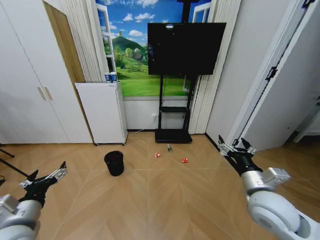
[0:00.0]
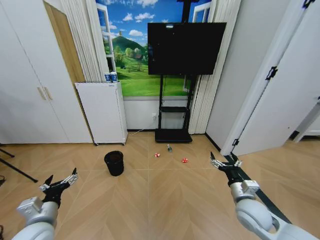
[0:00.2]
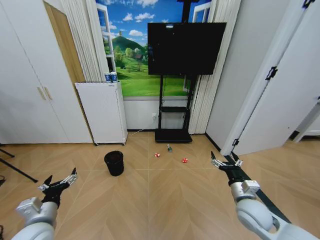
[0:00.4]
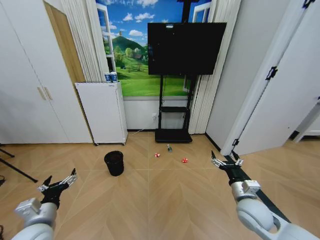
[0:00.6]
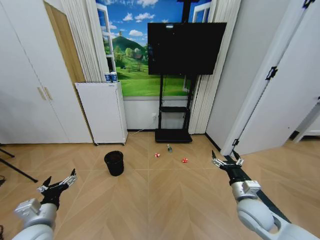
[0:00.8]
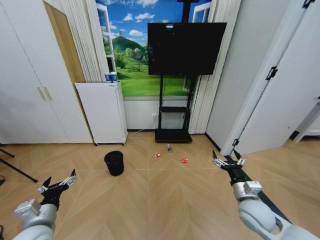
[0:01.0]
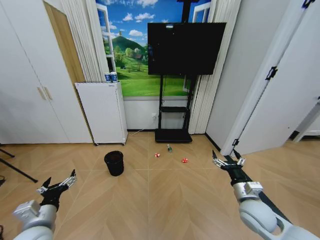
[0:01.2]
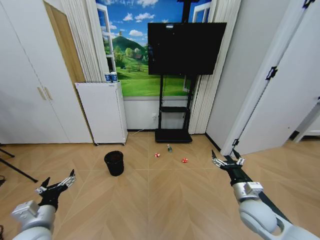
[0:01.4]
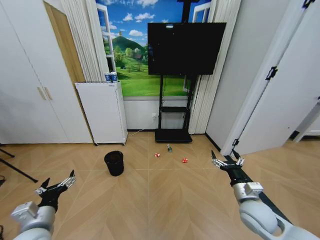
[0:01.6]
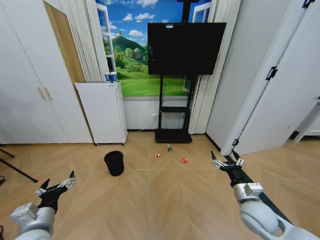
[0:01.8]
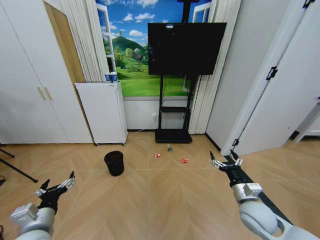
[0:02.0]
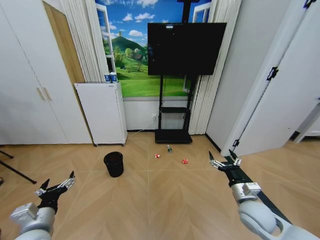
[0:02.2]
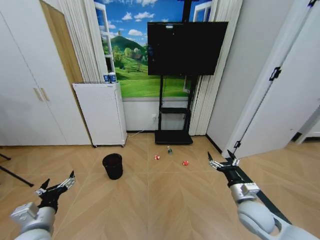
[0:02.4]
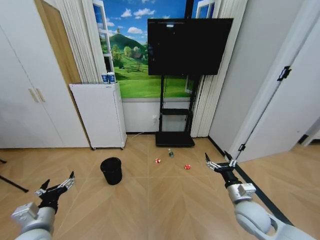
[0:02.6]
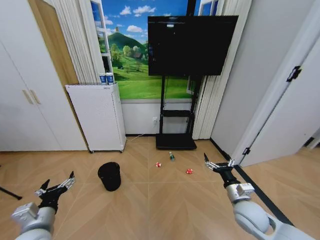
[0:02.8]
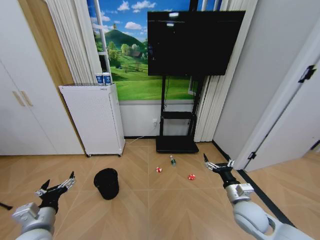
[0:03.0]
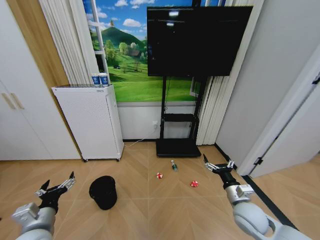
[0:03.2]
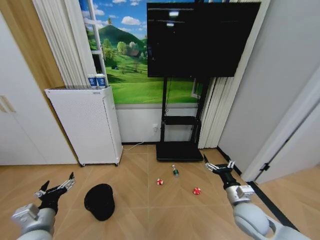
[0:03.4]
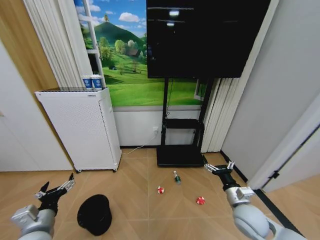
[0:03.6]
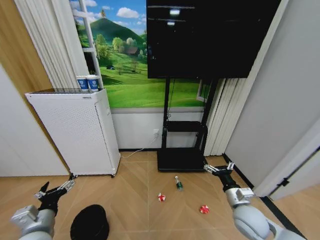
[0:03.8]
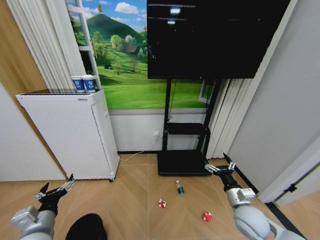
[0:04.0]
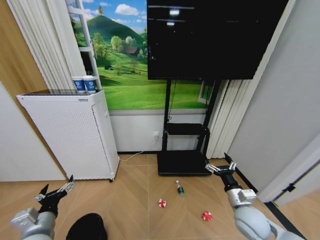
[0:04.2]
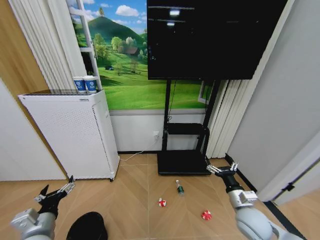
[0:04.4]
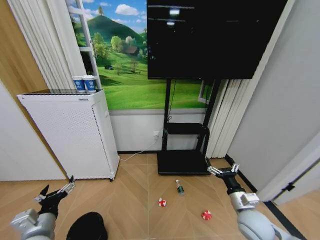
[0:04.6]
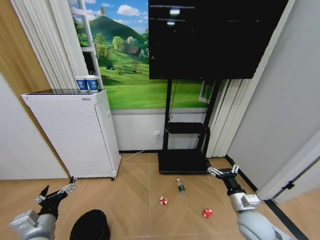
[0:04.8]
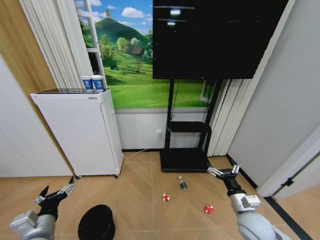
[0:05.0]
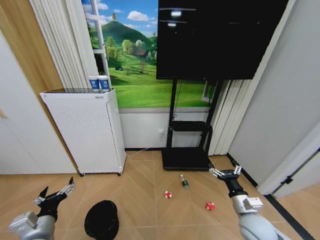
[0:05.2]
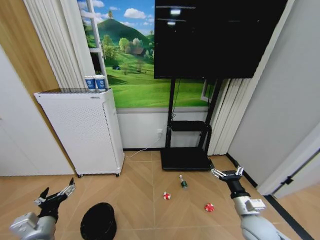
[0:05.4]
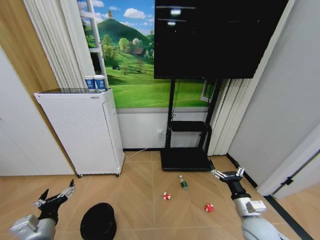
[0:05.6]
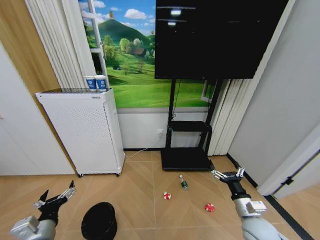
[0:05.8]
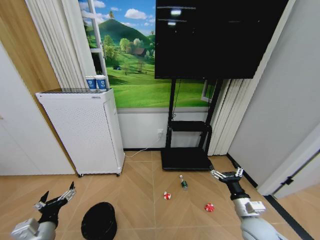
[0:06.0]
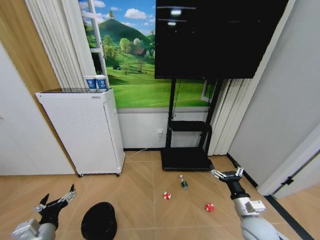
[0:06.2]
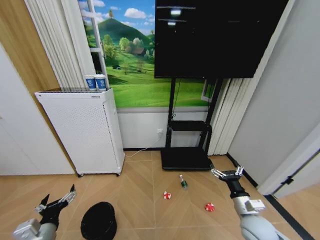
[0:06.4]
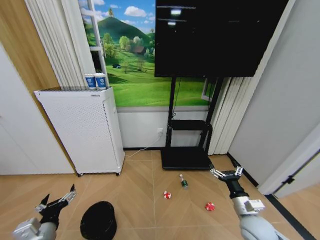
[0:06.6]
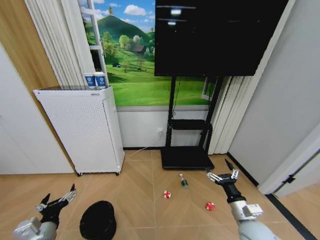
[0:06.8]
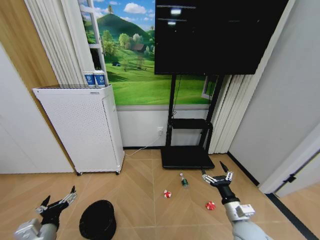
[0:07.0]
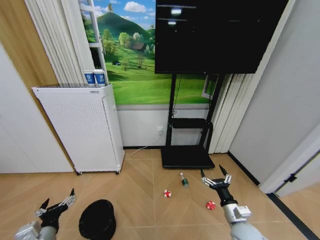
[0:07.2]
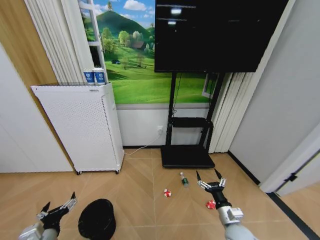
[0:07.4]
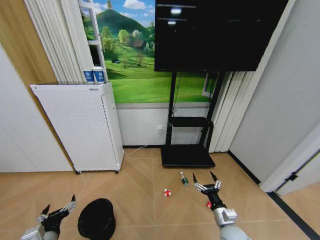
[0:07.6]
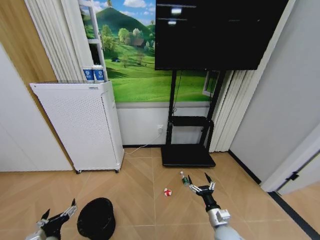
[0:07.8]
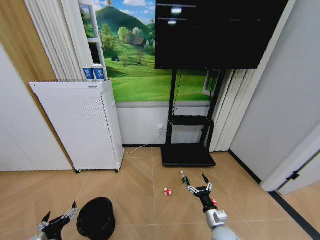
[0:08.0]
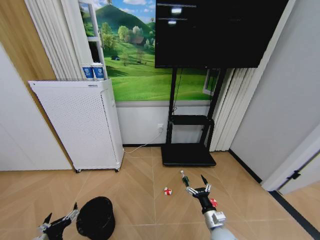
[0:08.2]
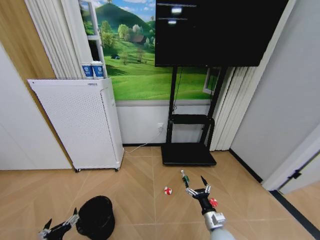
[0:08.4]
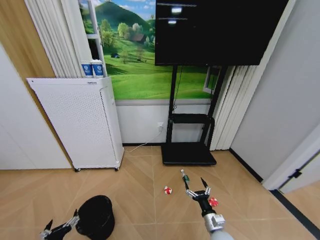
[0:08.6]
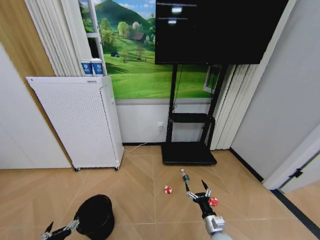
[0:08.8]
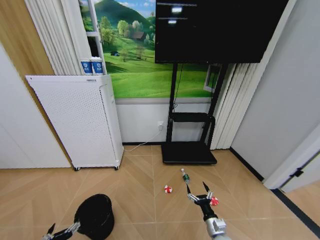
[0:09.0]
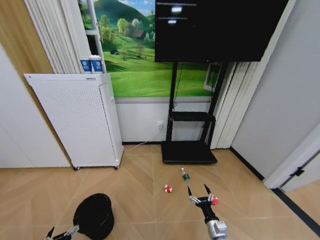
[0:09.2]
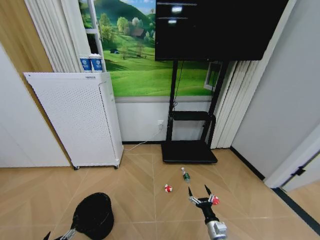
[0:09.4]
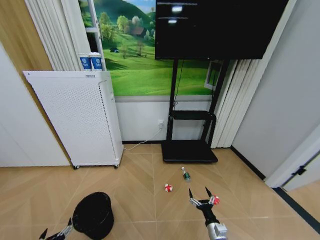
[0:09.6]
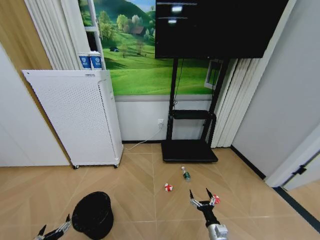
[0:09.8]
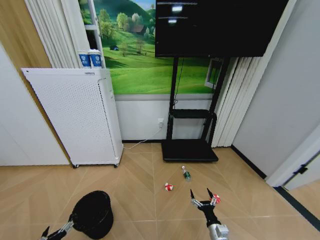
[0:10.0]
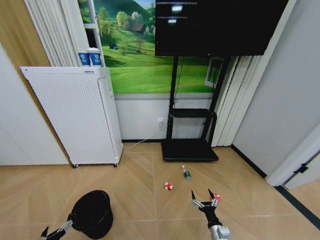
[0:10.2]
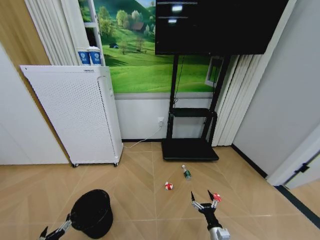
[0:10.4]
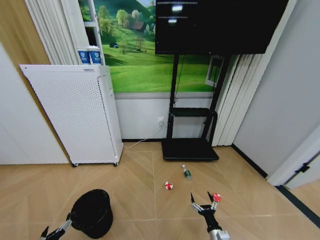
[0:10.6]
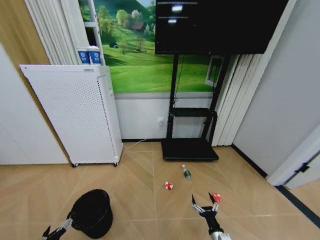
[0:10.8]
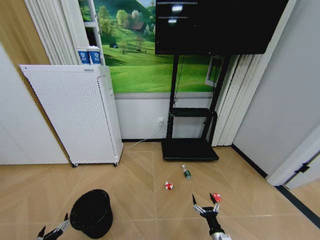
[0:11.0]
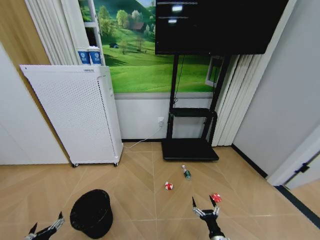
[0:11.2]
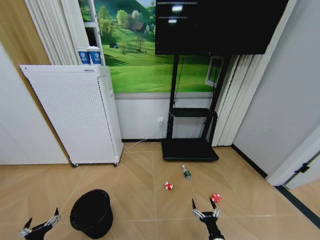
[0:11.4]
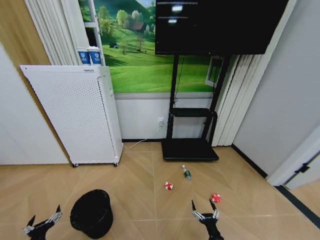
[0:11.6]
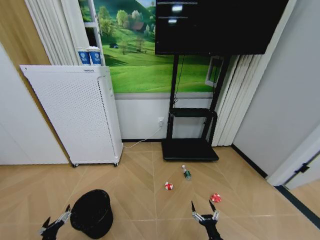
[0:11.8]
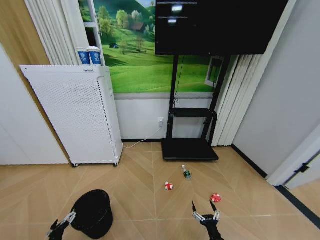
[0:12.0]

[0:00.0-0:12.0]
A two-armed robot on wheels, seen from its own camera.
Task of the whole recording: Pick up the trash bin and place the garbage on the floor into it.
0:06.0 to 0:07.6: The right gripper is displaced downward by some 10 cm.
0:07.6 to 0:09.0: The right gripper goes some 5 cm downward. The left gripper travels downward by about 10 cm.
0:09.0 to 0:10.4: The left gripper moves approximately 5 cm.
0:10.4 to 0:12.0: The right gripper shifts by roughly 5 cm.

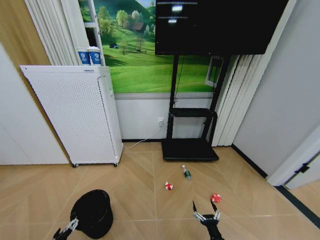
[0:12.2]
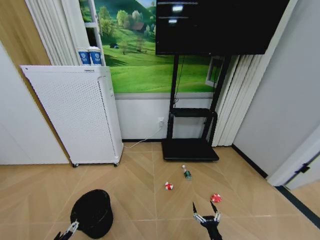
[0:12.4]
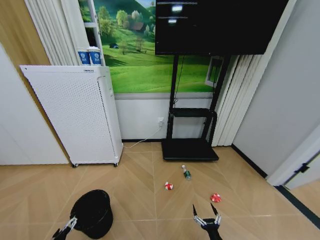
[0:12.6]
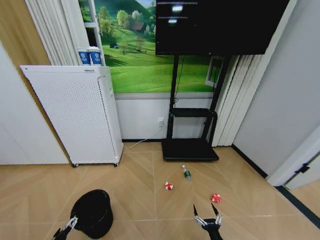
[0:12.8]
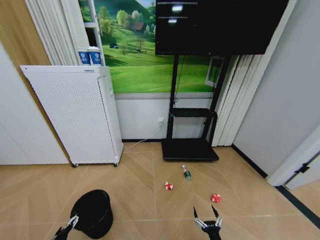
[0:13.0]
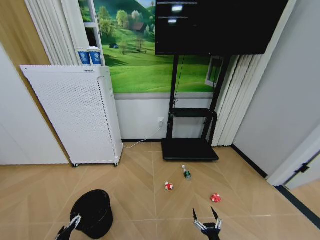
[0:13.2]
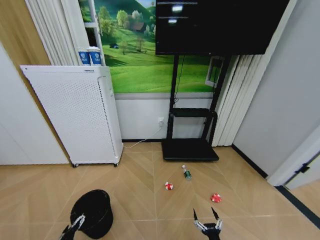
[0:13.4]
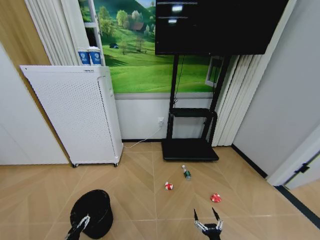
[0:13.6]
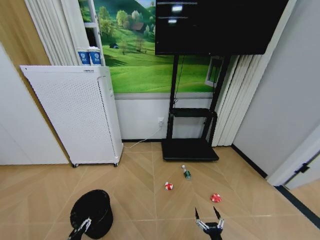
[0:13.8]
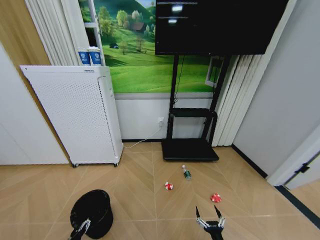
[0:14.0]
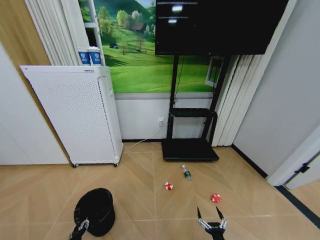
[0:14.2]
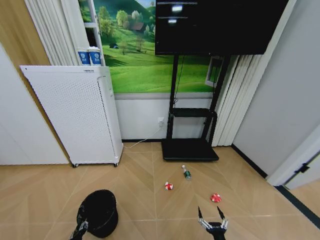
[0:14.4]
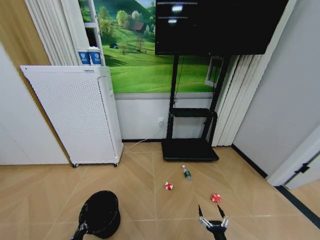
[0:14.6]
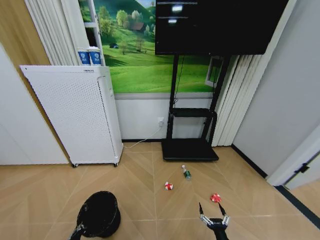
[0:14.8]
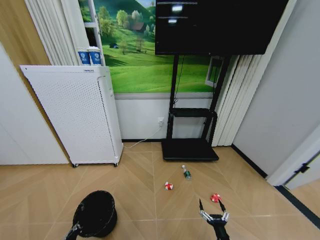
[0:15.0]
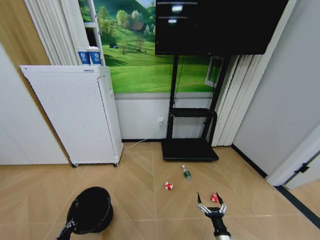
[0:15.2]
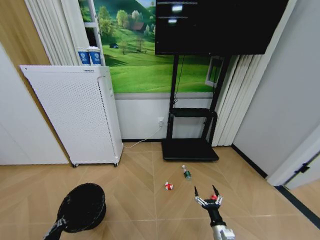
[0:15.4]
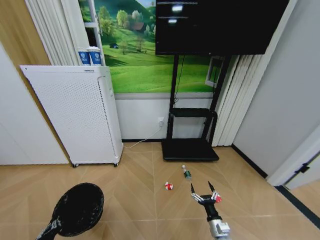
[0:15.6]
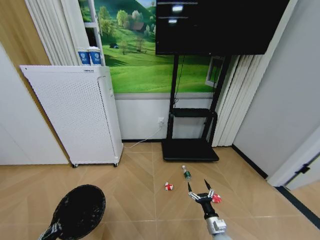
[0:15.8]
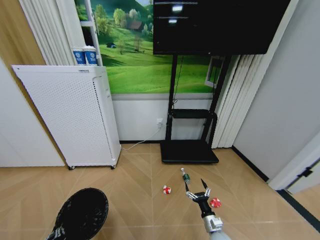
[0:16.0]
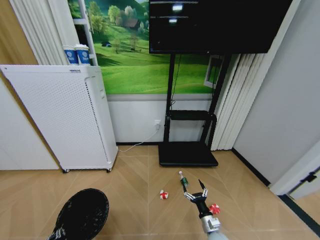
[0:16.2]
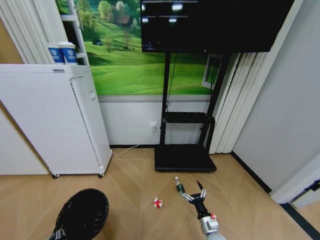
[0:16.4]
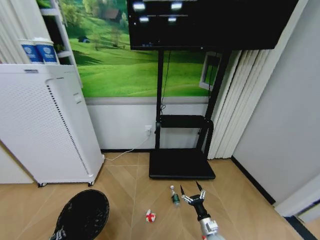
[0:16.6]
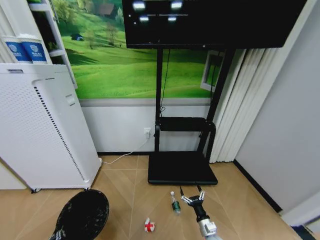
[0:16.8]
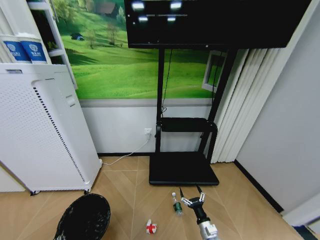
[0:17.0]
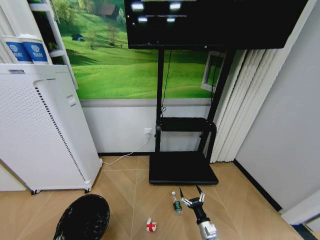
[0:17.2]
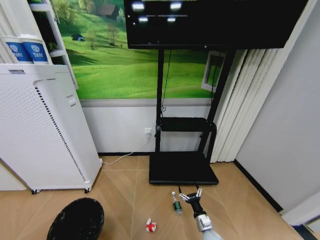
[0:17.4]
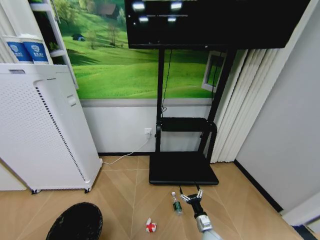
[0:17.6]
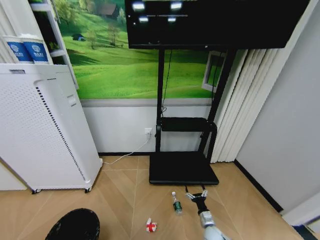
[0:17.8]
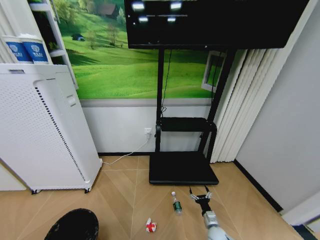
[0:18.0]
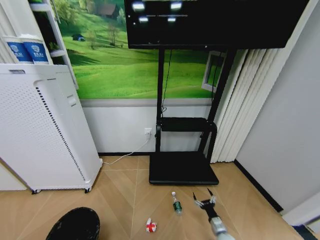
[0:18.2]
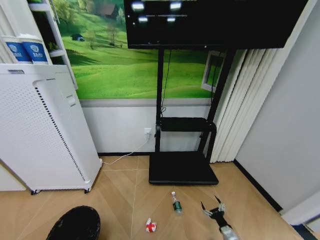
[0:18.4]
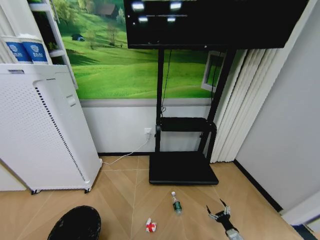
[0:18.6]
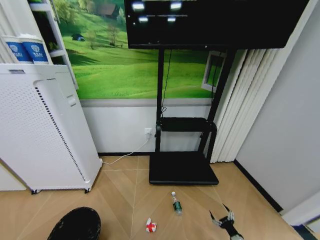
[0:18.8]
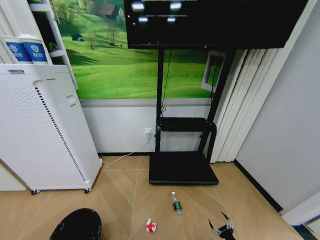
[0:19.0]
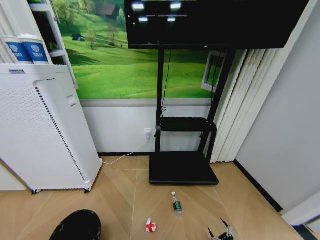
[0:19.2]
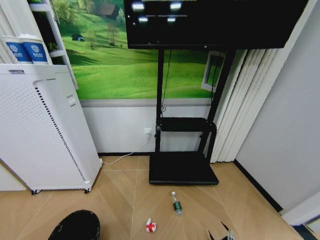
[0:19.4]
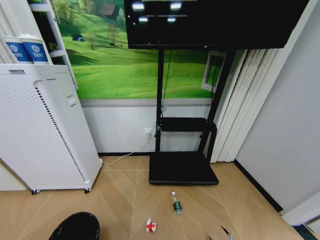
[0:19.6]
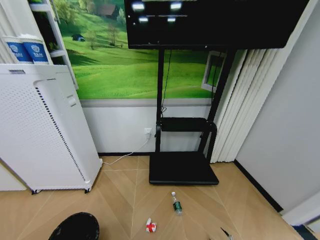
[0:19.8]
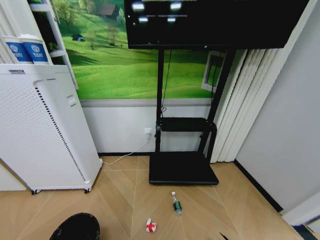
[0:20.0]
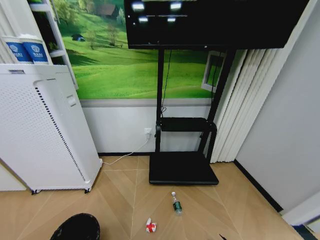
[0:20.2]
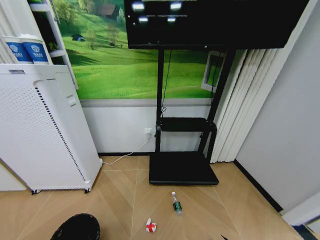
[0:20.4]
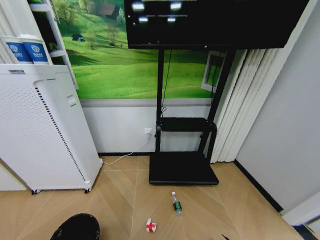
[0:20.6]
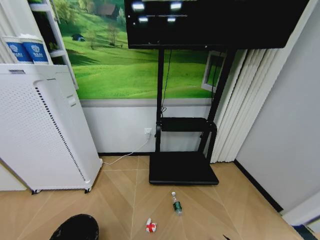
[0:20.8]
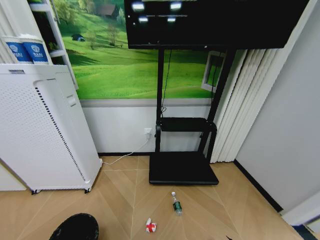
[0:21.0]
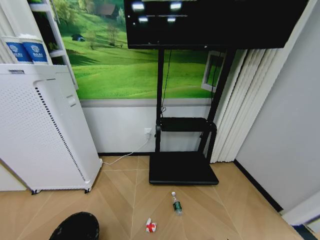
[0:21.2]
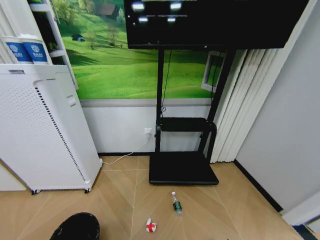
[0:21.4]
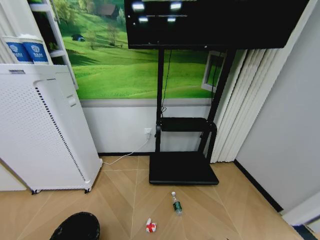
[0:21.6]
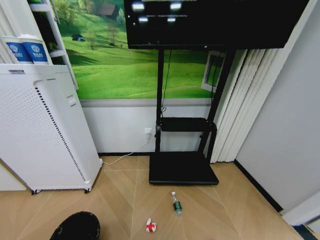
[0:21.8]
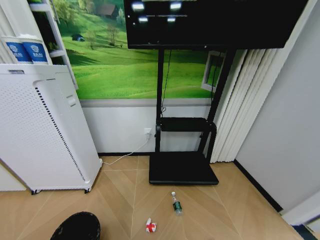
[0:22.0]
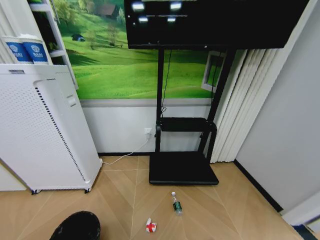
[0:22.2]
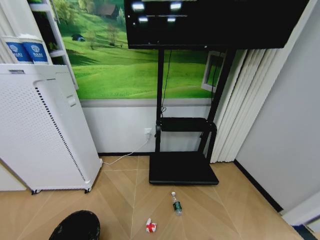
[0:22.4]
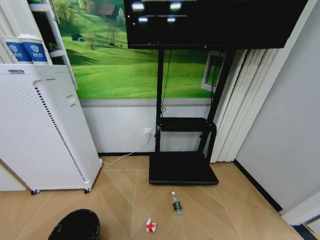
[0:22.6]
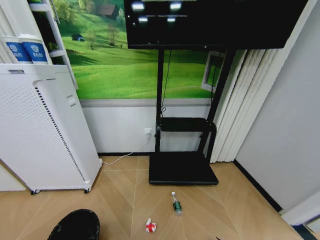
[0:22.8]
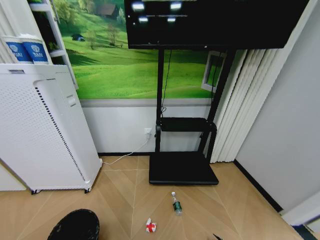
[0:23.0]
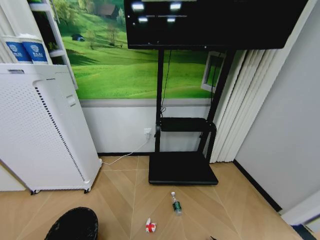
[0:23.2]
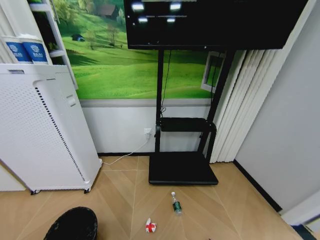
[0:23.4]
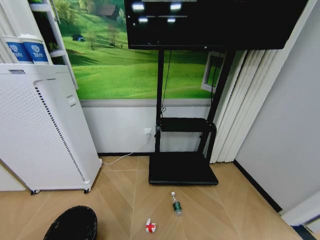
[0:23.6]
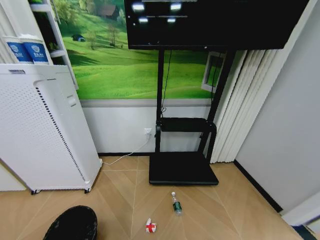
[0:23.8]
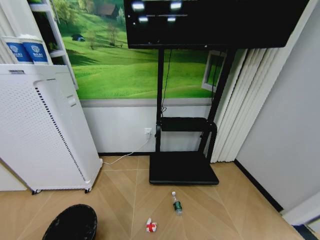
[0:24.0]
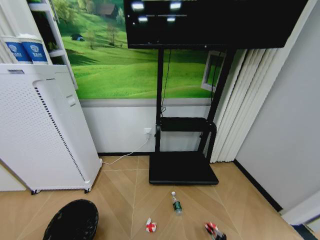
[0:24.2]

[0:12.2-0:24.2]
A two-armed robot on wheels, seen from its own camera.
Task of the whole recording: Pick up the trash bin and place the garbage on the floor into it.
0:12.2 to 0:13.8: The left gripper ends up approximately 5 cm from where it was.
0:13.8 to 0:15.2: The right gripper moves forward, roughly 5 cm, while the left gripper closes.
0:15.2 to 0:16.6: The right gripper moves forward, about 5 cm; the left gripper moves backward and upward, about 10 cm.
0:16.6 to 0:18.2: The left gripper moves approximately 5 cm. Meanwhile the right gripper shifts roughly 10 cm to the right and downward.
0:18.2 to 0:19.8: The right gripper goes about 25 cm backward, to the right and downward.
0:22.6 to 0:24.2: The left gripper moves some 5 cm.
